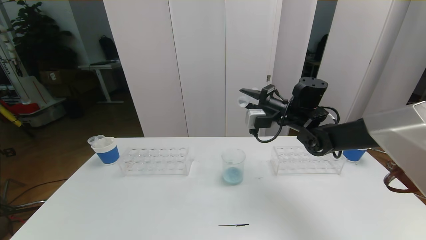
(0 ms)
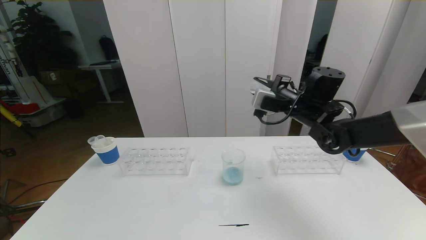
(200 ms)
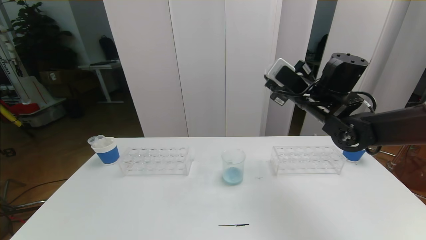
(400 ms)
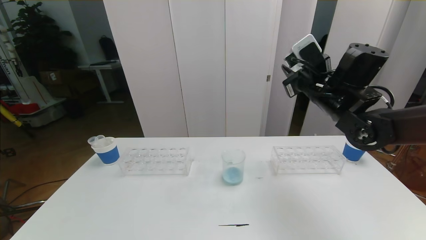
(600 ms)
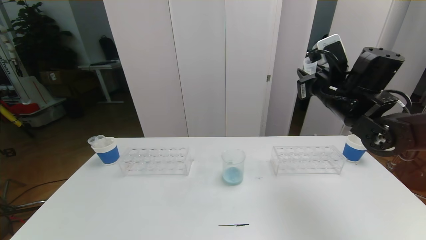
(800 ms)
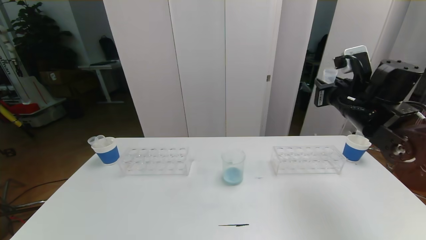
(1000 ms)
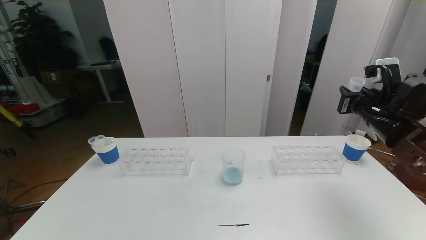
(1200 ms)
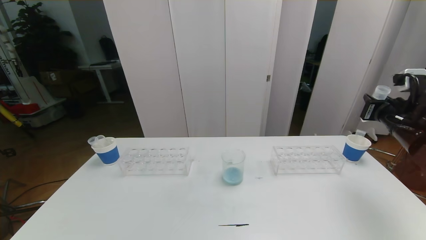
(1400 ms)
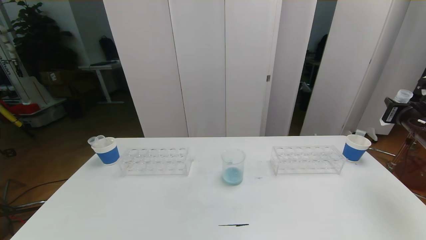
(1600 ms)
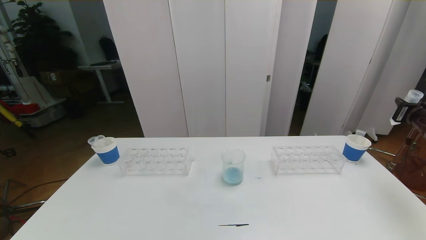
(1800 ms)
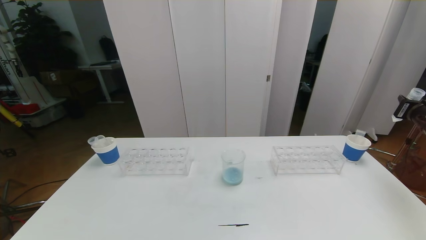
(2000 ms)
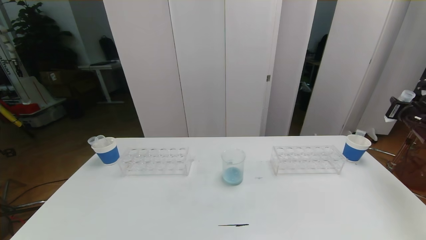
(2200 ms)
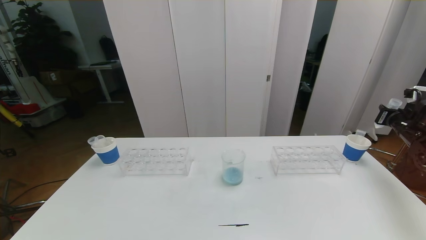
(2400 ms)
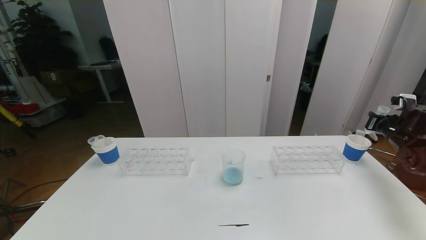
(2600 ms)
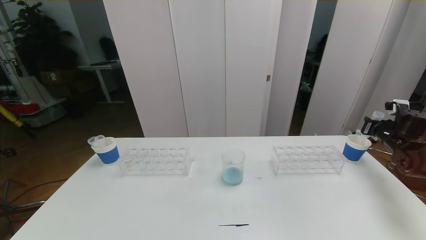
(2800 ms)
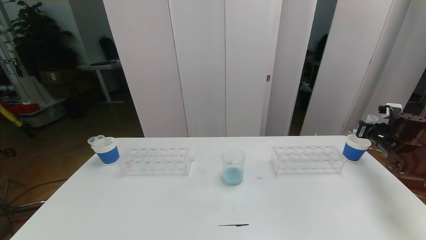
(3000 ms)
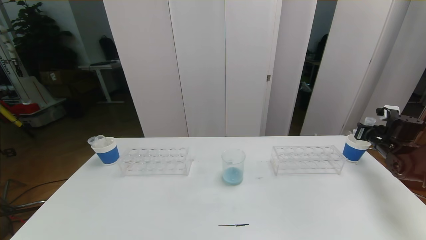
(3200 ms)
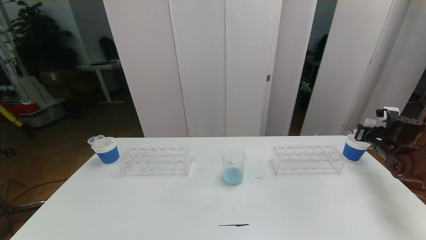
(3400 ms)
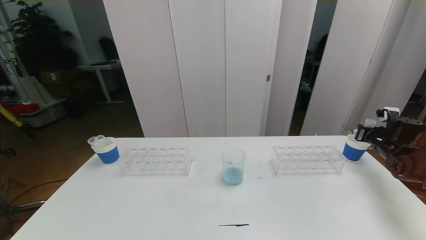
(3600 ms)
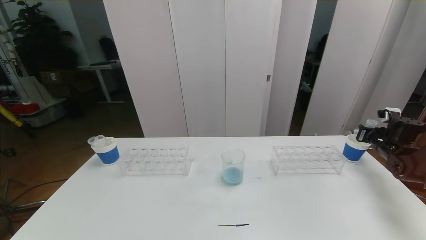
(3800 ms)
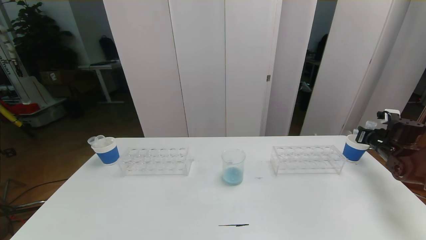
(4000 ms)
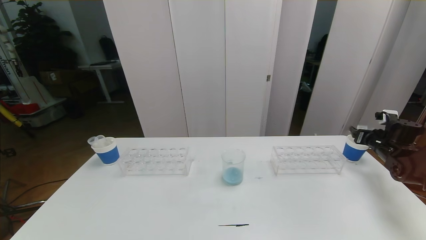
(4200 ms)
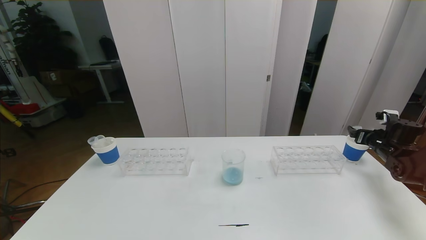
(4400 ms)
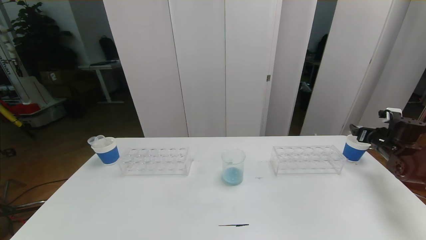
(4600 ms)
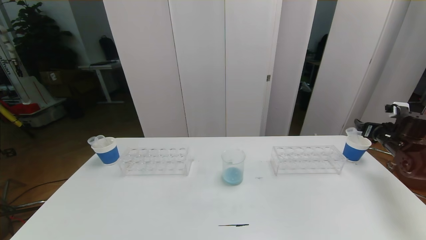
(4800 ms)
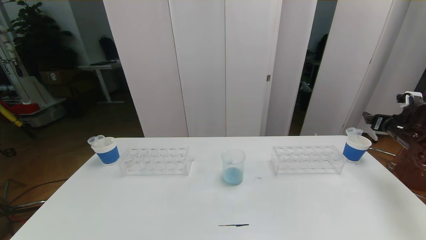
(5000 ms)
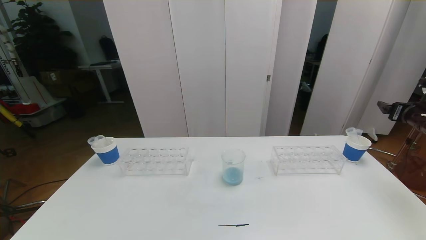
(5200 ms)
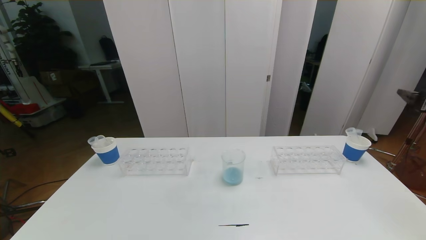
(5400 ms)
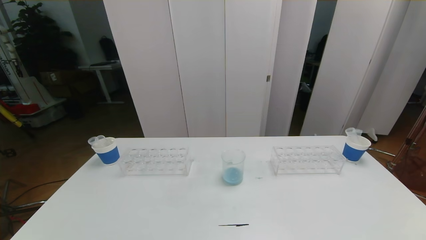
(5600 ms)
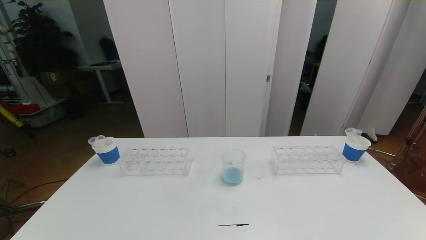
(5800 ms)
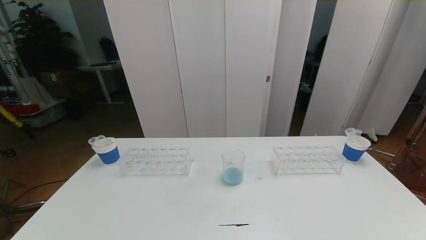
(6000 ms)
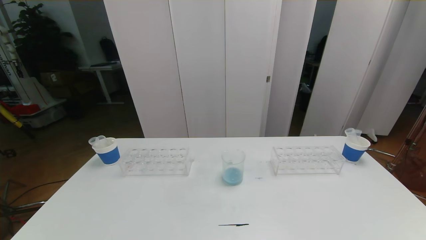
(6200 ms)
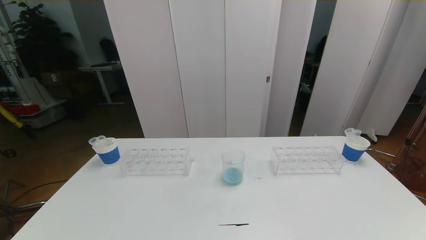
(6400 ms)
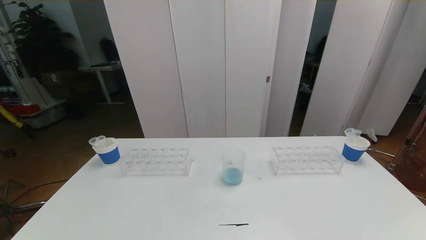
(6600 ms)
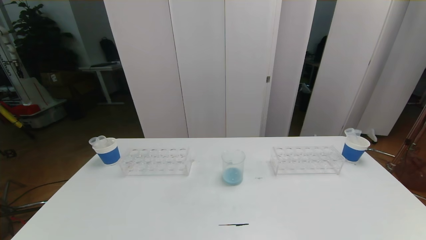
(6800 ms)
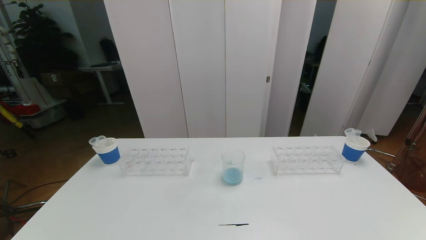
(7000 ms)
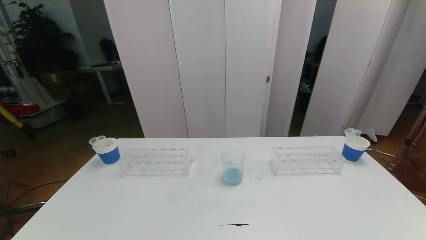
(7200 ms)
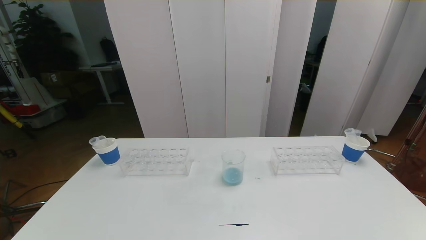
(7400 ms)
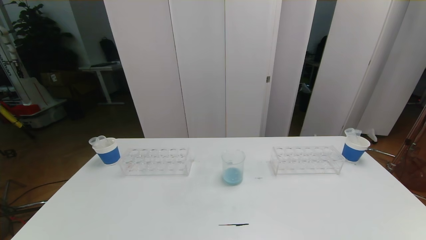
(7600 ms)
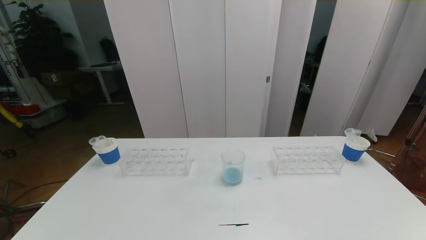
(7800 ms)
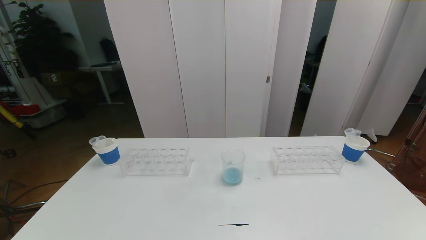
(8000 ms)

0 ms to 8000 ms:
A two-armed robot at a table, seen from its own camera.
Task of the whole recording: pick up the test tube with red pigment the test tube with blue pigment and the test tube with white pigment by grippers and pour them into the beaker.
Step, 0 ms to 8000 ms: Pour the white reagent into the graduated cylinder and place the test tube into the paper cup.
0 ms to 1600 ms: The right gripper goes approximately 25 cm to the right.
1600 ms to 3200 ms: The right gripper travels downward and forward by about 15 cm.
3200 ms to 4800 ms: The right gripper opens.
4800 ms to 6400 ms: The right gripper moves backward, approximately 40 cm.

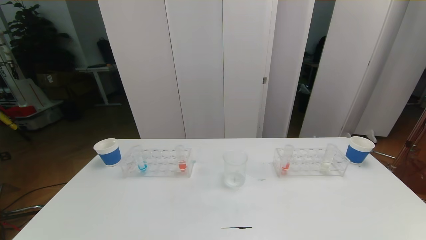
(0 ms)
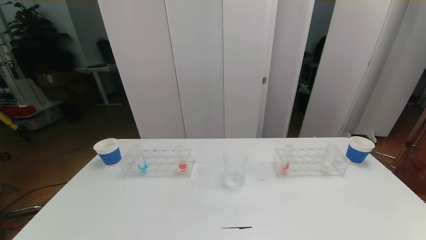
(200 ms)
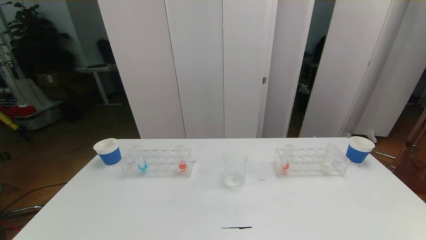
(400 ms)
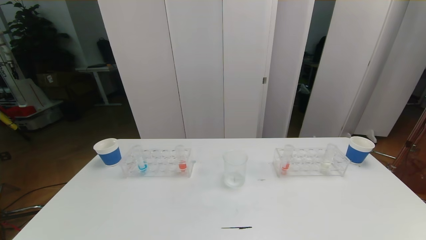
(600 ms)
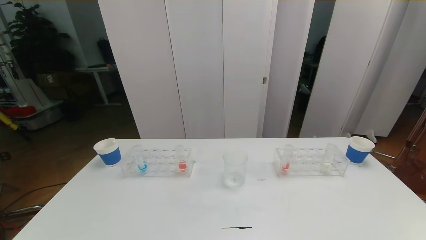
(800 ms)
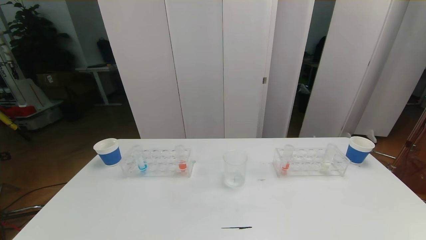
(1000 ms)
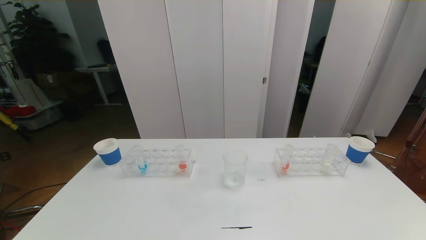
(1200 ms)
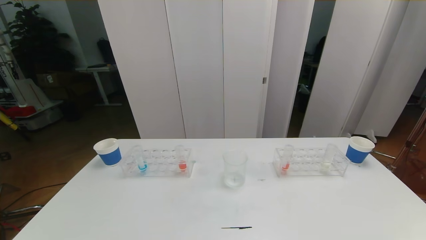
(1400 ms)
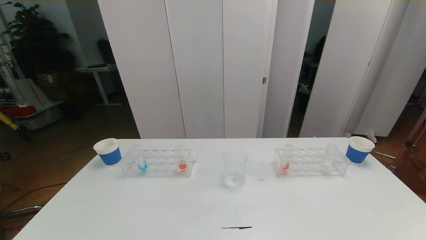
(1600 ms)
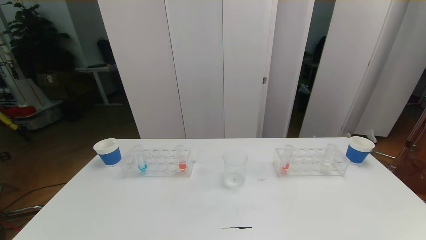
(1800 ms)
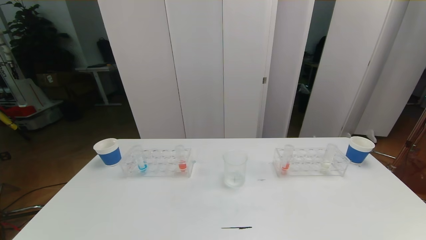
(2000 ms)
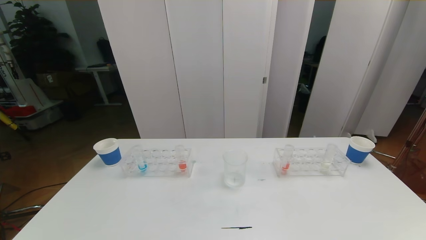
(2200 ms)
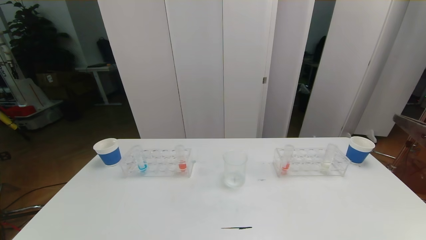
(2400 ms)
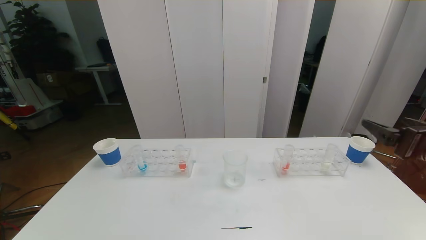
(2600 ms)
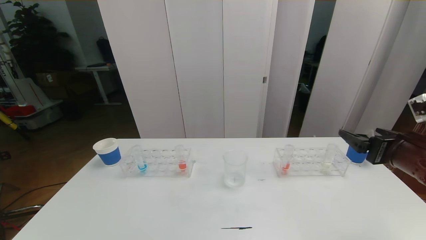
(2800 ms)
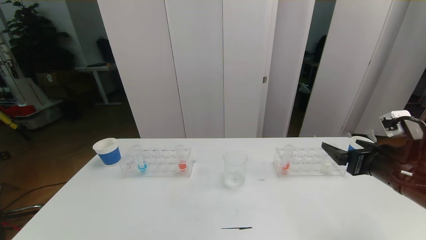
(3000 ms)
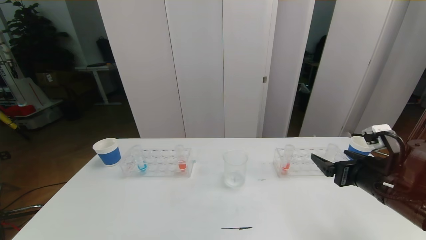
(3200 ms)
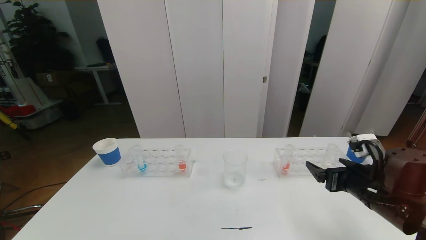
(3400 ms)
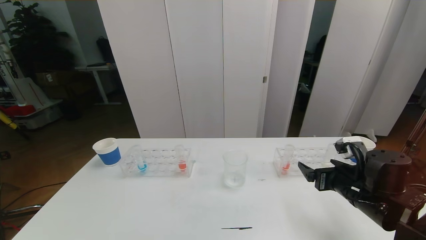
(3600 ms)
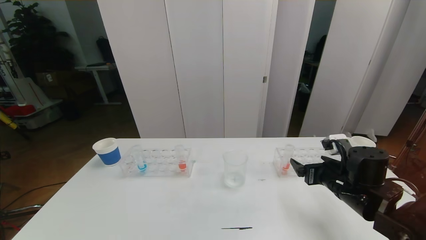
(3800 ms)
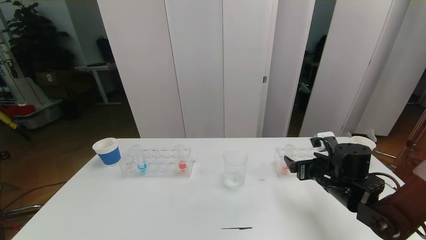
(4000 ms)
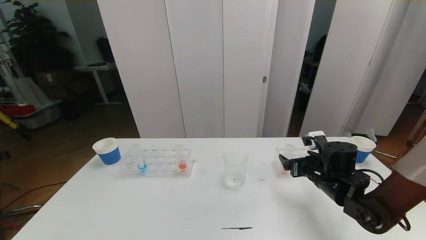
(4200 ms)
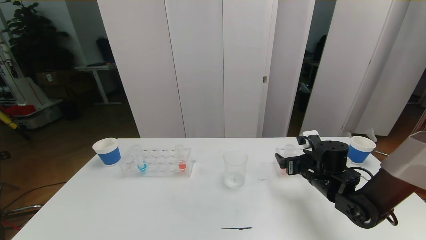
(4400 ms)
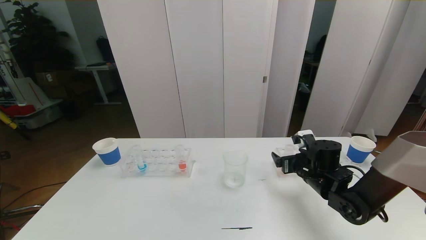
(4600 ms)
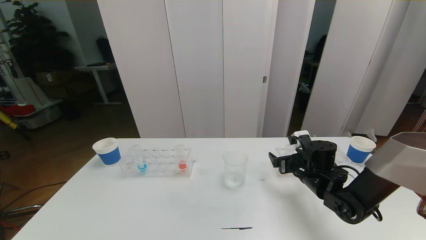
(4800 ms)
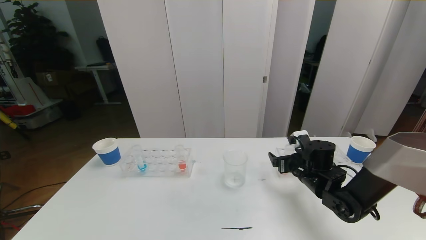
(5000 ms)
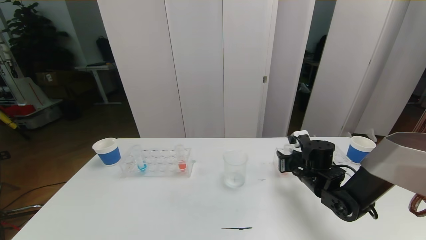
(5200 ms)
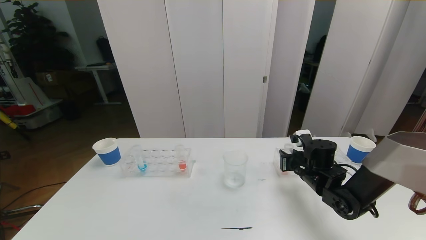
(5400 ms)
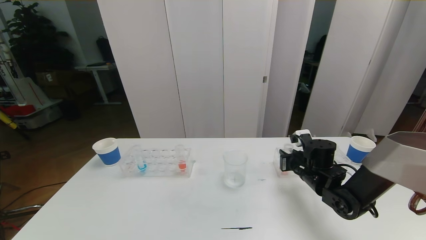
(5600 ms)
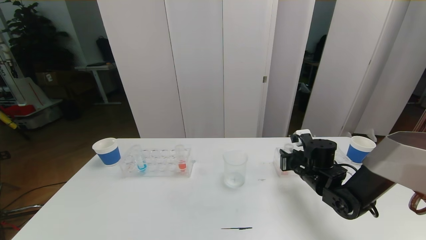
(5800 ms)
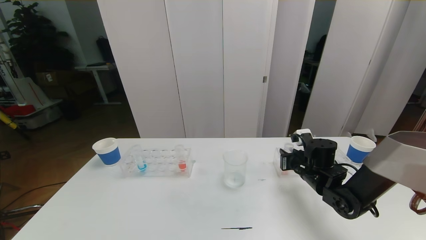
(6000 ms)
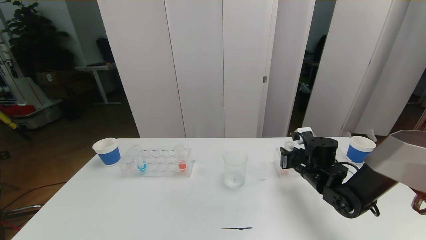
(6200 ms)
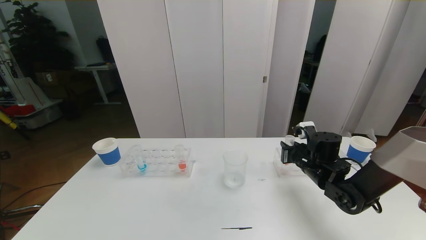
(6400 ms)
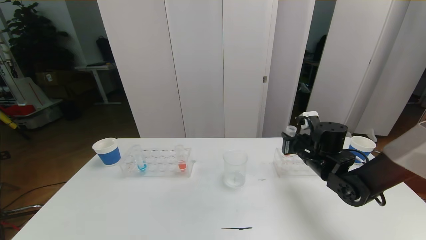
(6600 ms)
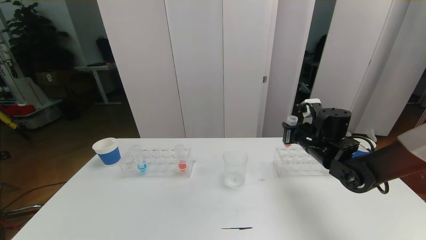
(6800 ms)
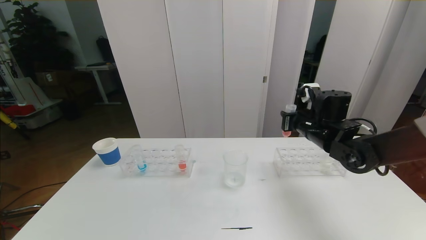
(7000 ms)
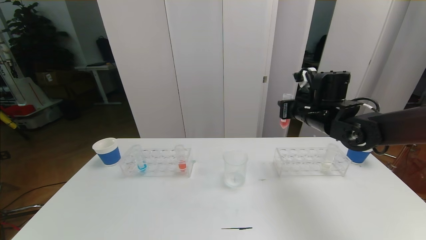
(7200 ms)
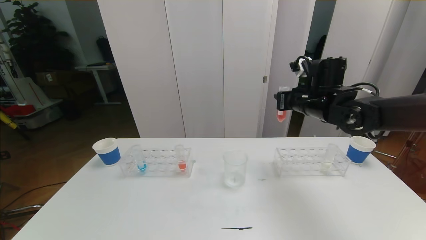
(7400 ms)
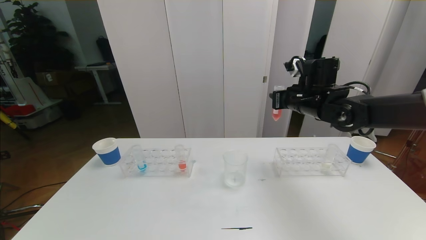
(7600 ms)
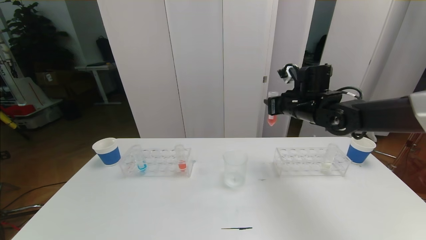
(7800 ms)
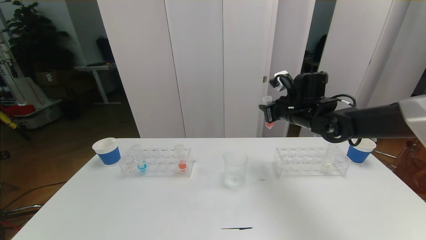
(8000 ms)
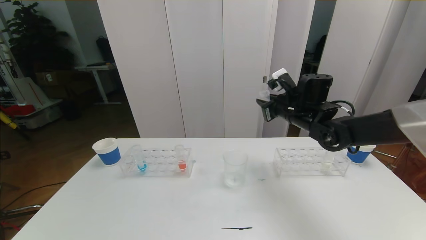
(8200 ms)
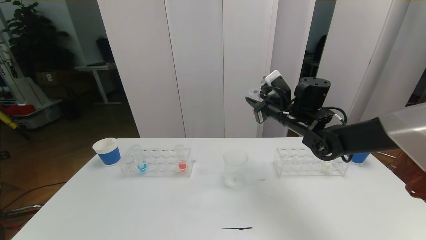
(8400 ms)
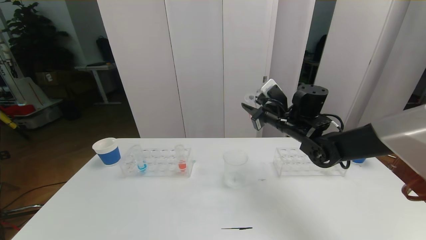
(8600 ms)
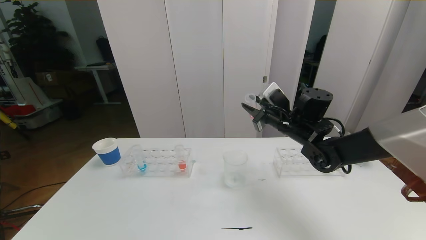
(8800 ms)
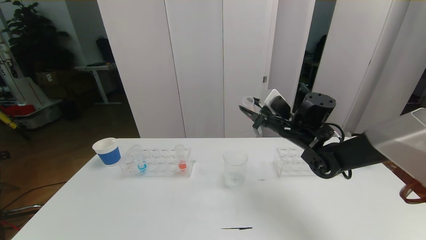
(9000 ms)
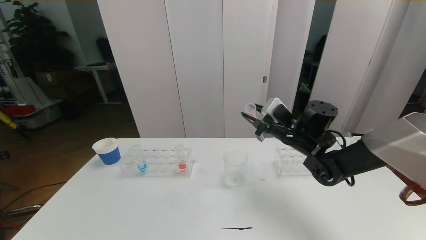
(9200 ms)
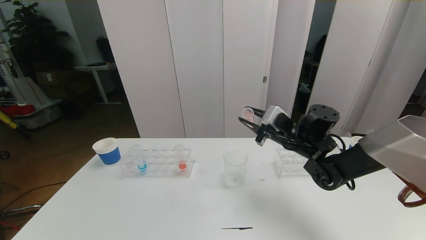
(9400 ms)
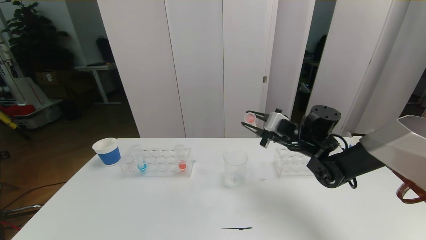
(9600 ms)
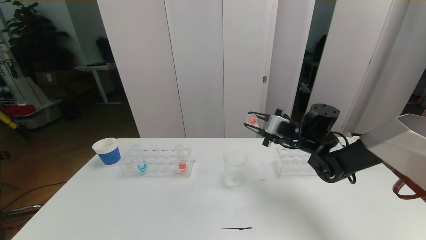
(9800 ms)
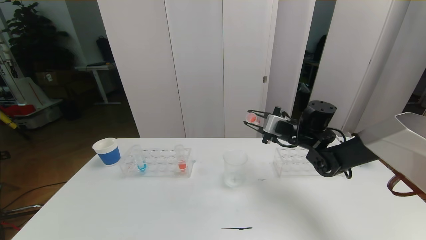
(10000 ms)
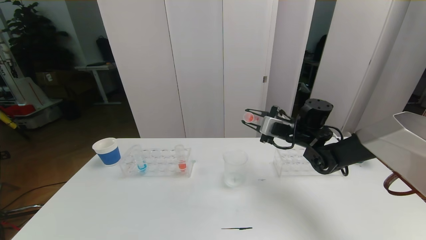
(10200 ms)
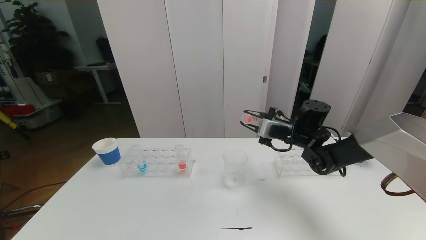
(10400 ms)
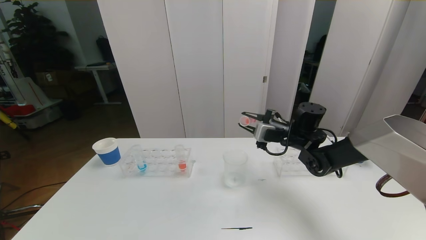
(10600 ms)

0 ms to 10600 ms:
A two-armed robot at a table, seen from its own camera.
Task of the whole recording: pick up the test tube with red pigment the test tube with blue pigment and the test tube with white pigment by grippers and pour them into the beaker.
1600 ms to 3000 ms: The right gripper moves forward, about 25 cm.
3000 ms to 4600 ms: The right gripper travels forward, downward and to the left by approximately 15 cm.
4600 ms to 6000 ms: The right gripper closes.
6000 ms to 7600 ms: The right gripper goes about 15 cm upward.
7600 ms to 9000 ms: The right gripper moves downward, about 5 cm.
9000 ms to 10600 ms: The right gripper changes place by approximately 5 cm.
